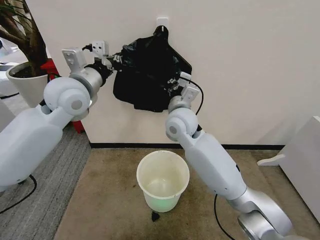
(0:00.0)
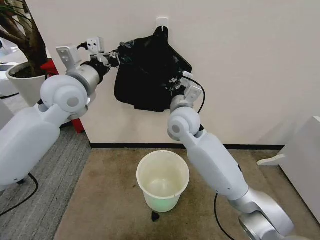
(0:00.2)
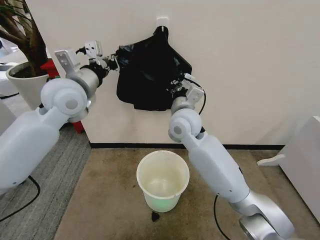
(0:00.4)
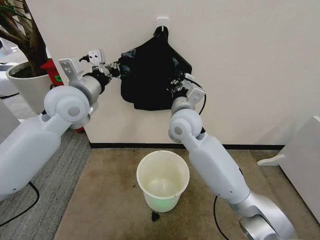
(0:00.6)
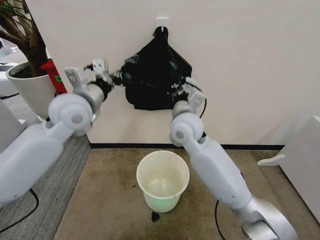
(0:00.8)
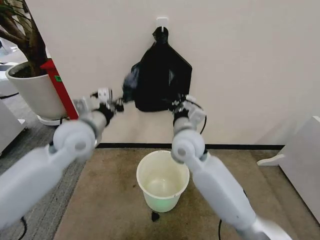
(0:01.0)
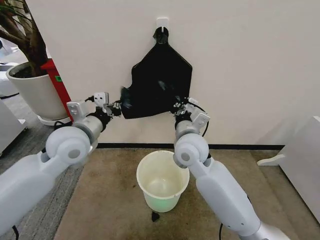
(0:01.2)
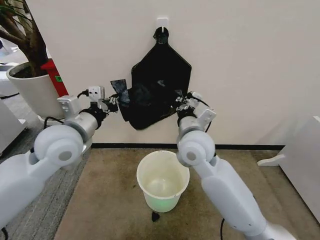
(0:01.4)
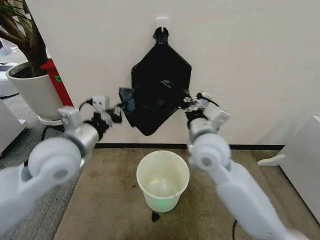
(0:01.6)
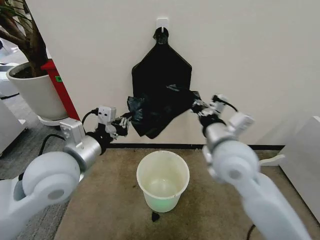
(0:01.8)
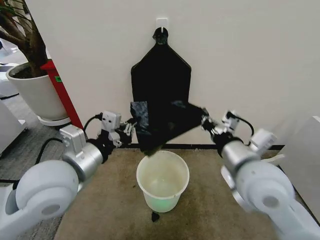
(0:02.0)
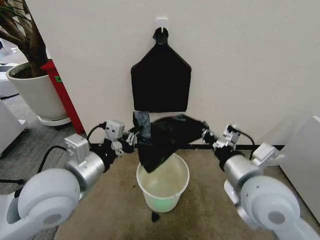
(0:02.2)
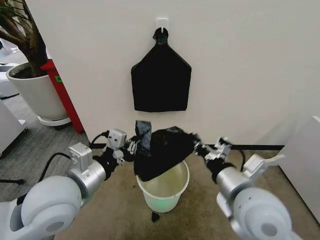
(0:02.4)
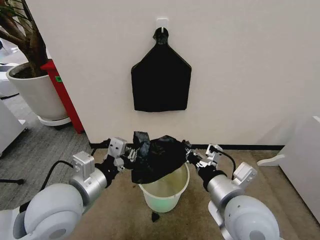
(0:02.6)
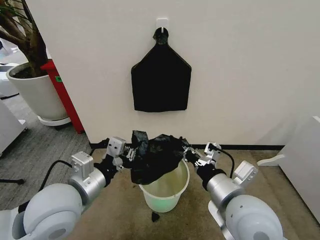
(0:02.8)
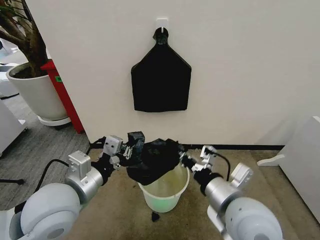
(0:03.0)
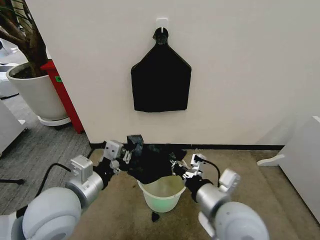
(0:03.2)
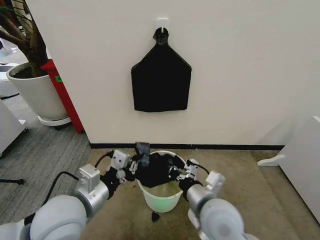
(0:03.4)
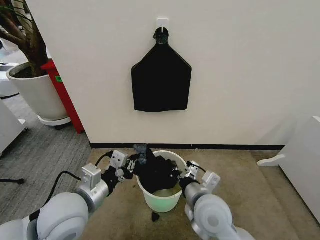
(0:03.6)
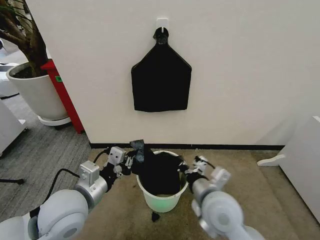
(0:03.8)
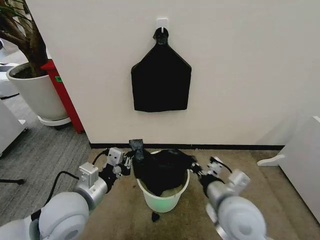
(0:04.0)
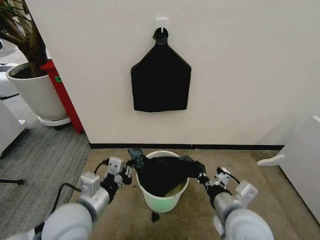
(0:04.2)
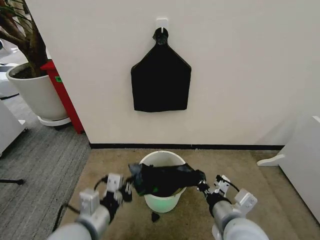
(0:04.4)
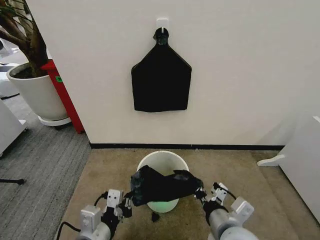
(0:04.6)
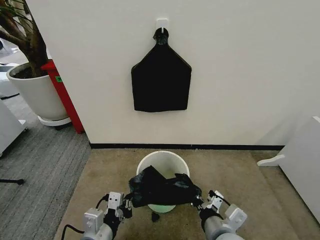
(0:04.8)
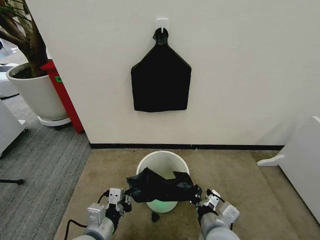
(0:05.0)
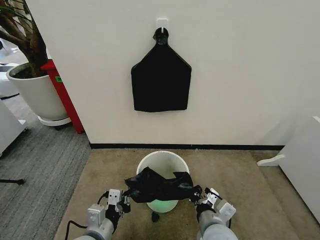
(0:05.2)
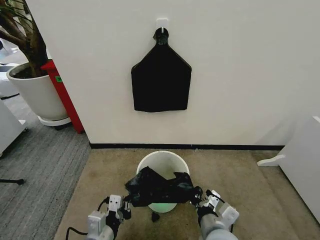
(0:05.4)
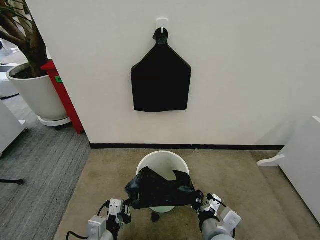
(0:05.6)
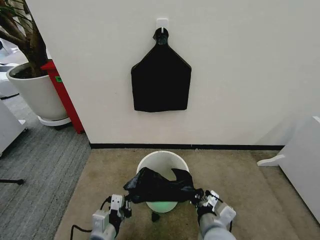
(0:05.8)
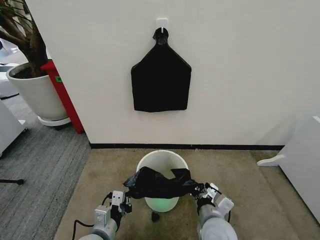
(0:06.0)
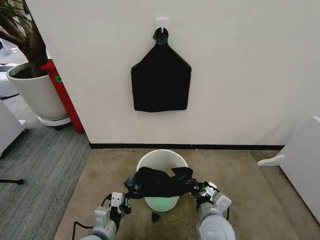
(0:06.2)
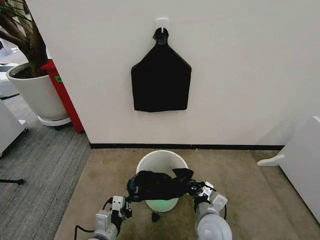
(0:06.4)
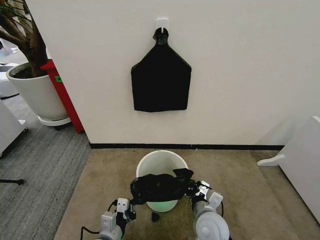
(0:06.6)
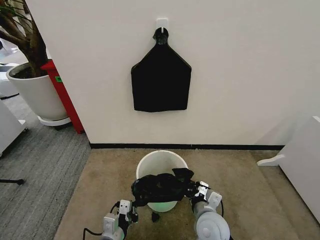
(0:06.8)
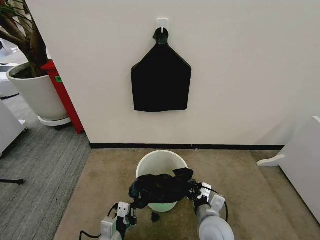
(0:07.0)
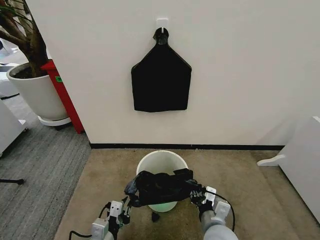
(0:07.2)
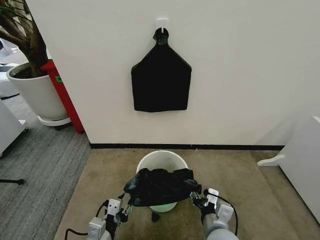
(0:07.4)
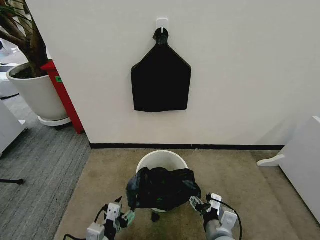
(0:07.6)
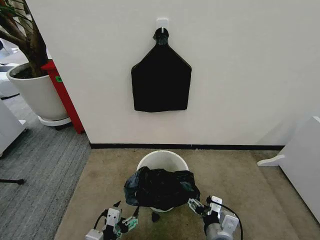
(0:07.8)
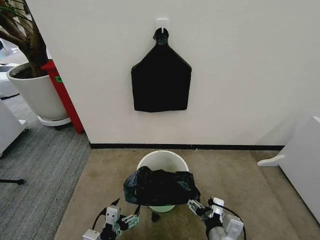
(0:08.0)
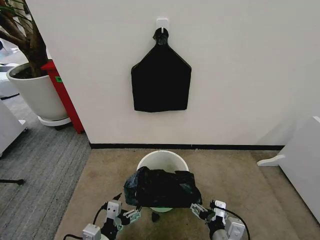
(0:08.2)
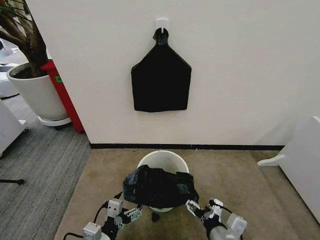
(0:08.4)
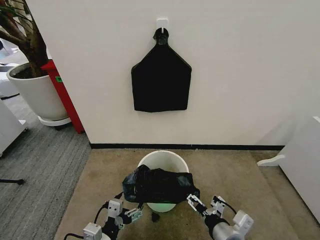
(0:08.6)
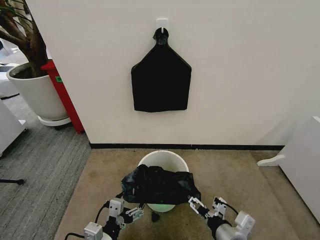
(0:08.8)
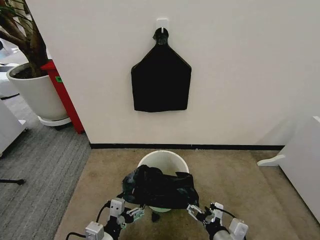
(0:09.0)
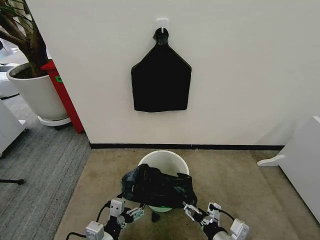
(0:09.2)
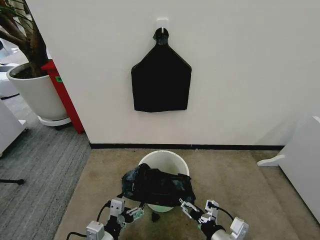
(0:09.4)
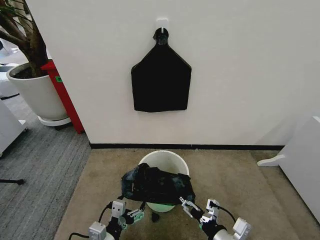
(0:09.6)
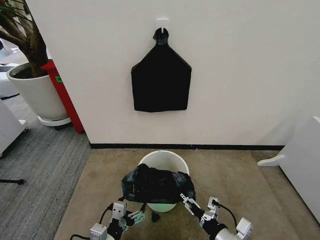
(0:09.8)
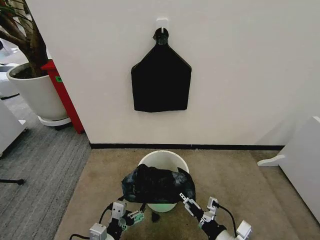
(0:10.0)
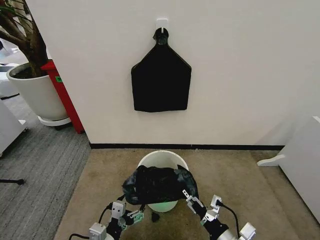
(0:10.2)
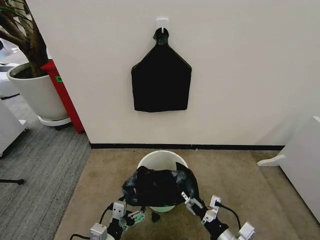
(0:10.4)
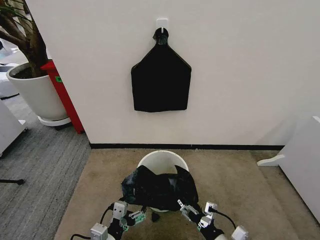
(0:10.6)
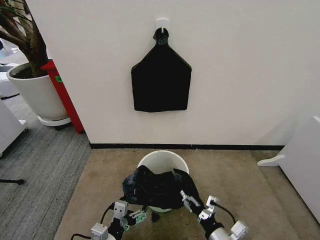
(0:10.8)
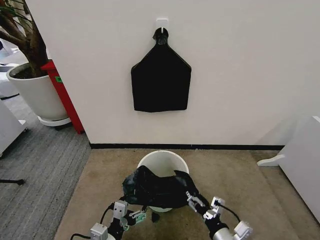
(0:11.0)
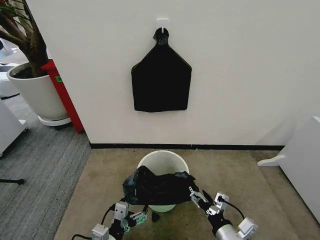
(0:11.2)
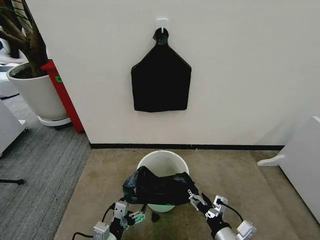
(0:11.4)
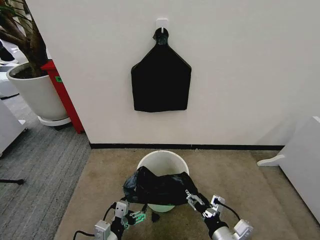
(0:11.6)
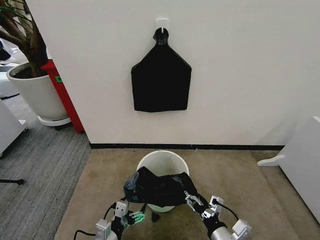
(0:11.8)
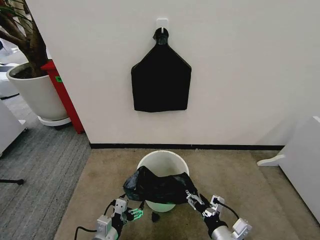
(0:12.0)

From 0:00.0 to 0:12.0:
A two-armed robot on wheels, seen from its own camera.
Task of the whole recording: Place the garbage bag over the trash bin.
From 0:00.0 to 0:01.6: The right gripper moves backward and to the right, approximately 15 cm. The left gripper moves backward and downward, roughly 15 cm.
From 0:01.6 to 0:03.0: The left gripper travels backward by approximately 5 cm, while the right gripper moves backward, approximately 15 cm.
From 0:03.0 to 0:04.4: The left gripper moves downward and backward, some 10 cm. Meanwhile the right gripper heads downward, covering some 5 cm.
From 0:04.4 to 0:06.0: Both grippers travel together downward, some 10 cm.
From 0:06.0 to 0:07.6: The right gripper opens its fingers. Meanwhile the left gripper opens up.
From 0:07.6 to 0:09.0: The right gripper shifts by some 5 cm.
From 0:10.4 to 0:12.0: The left gripper changes place by approximately 5 cm.

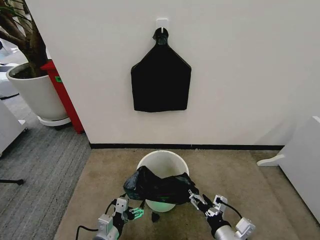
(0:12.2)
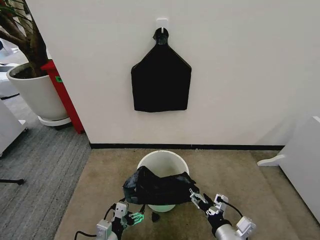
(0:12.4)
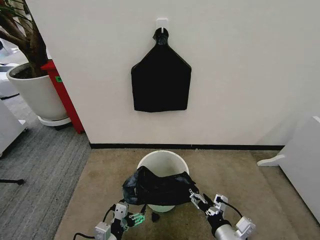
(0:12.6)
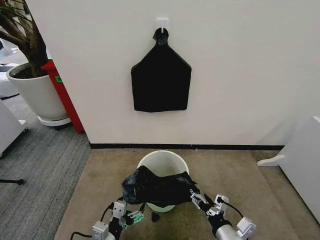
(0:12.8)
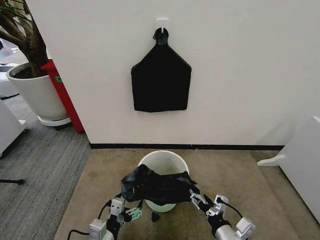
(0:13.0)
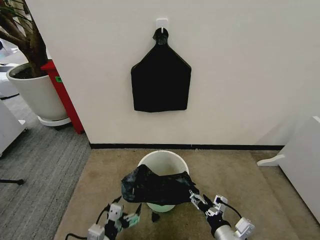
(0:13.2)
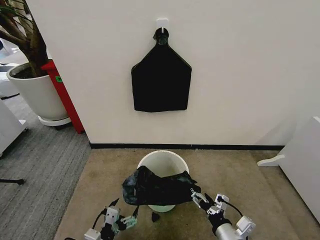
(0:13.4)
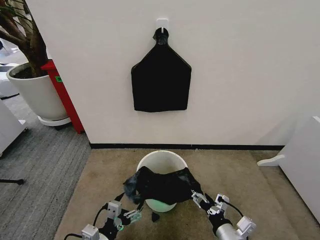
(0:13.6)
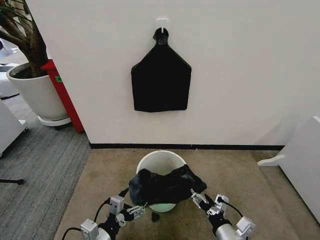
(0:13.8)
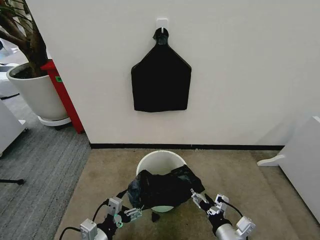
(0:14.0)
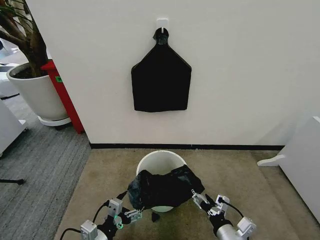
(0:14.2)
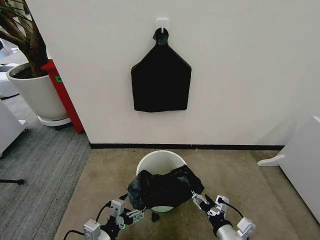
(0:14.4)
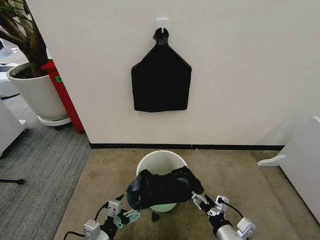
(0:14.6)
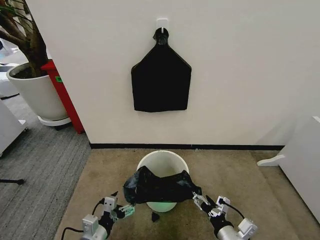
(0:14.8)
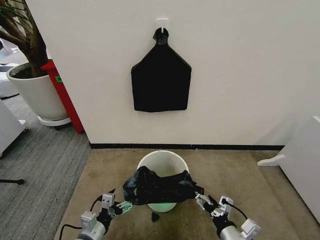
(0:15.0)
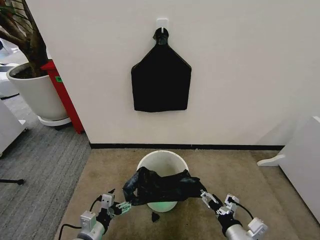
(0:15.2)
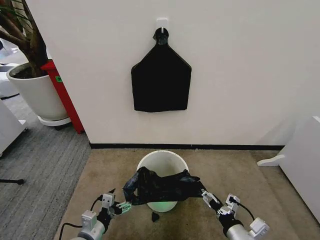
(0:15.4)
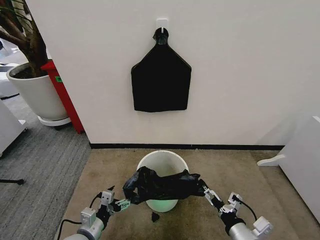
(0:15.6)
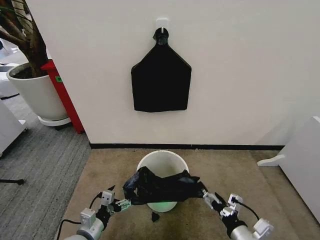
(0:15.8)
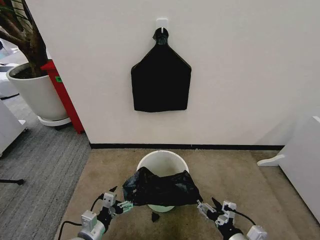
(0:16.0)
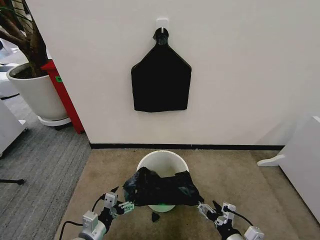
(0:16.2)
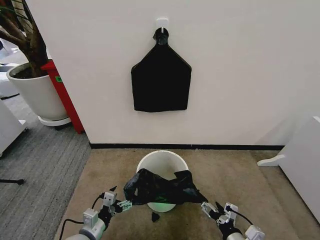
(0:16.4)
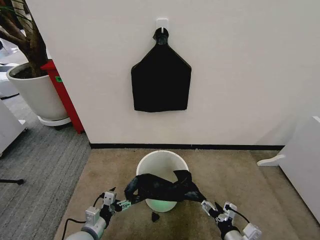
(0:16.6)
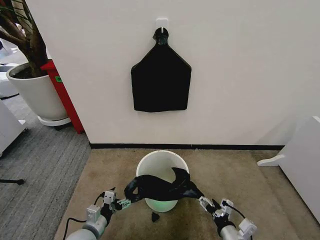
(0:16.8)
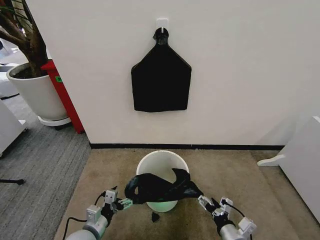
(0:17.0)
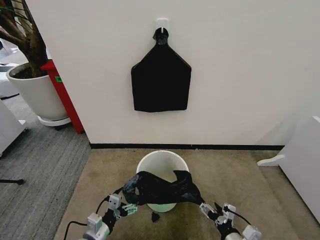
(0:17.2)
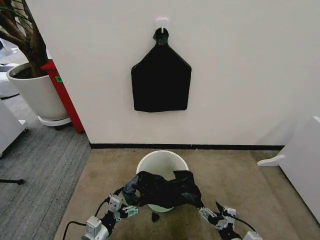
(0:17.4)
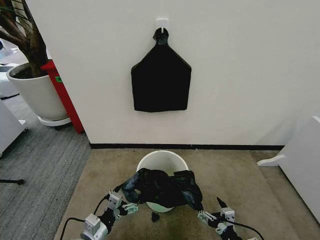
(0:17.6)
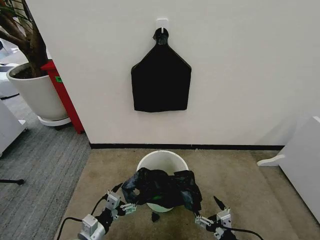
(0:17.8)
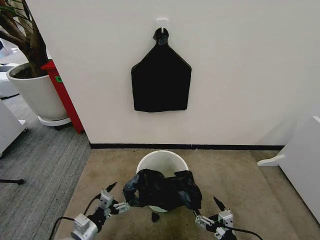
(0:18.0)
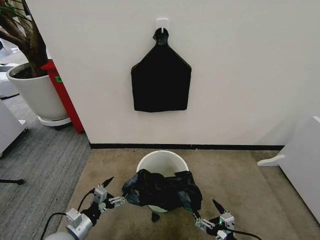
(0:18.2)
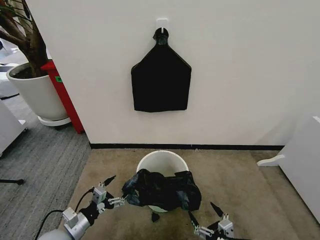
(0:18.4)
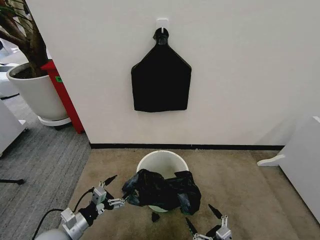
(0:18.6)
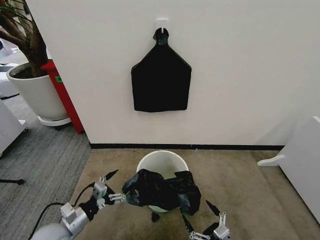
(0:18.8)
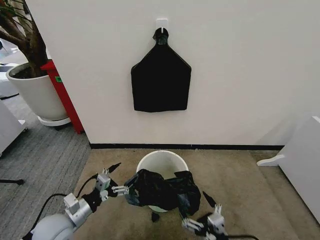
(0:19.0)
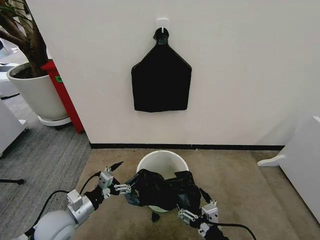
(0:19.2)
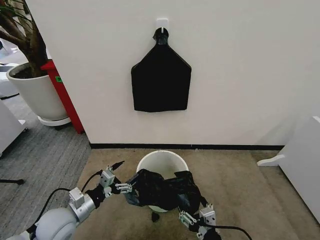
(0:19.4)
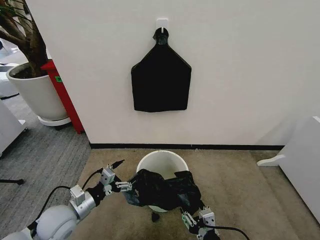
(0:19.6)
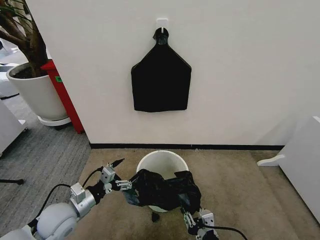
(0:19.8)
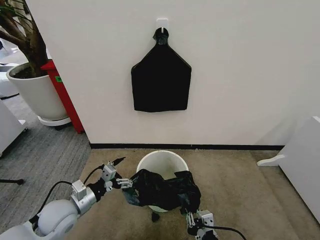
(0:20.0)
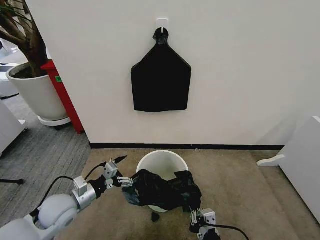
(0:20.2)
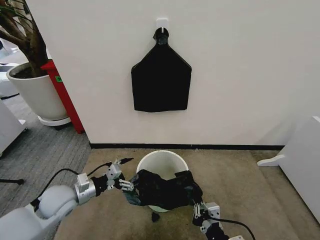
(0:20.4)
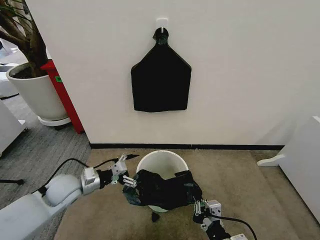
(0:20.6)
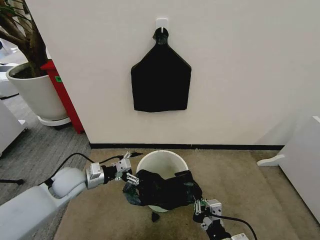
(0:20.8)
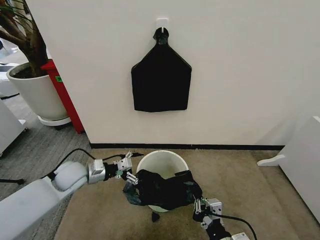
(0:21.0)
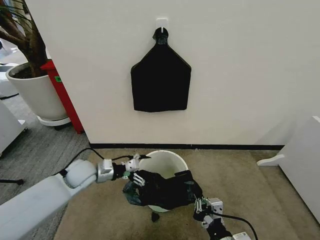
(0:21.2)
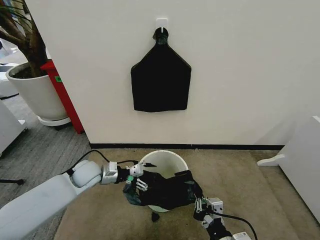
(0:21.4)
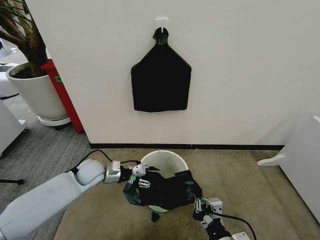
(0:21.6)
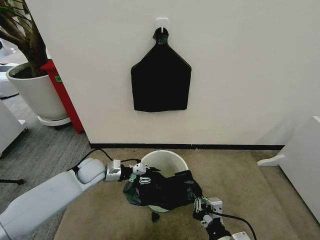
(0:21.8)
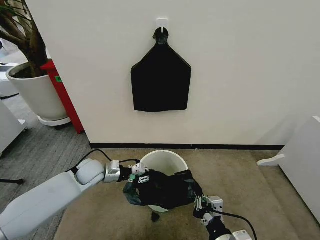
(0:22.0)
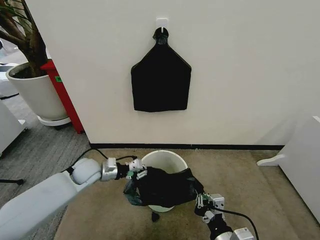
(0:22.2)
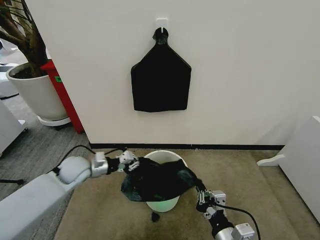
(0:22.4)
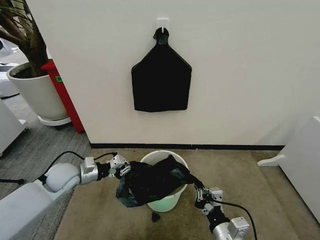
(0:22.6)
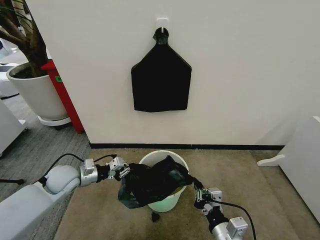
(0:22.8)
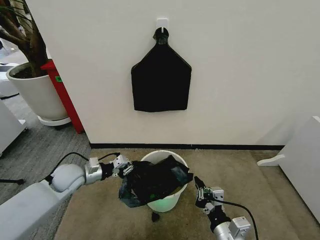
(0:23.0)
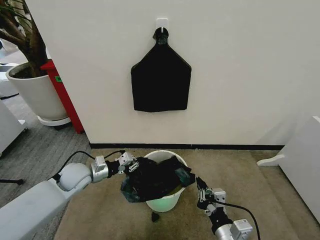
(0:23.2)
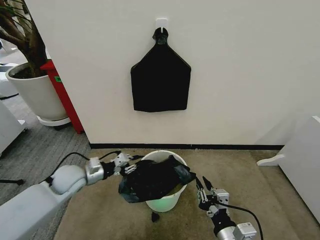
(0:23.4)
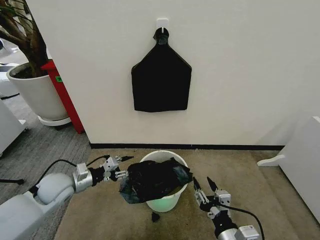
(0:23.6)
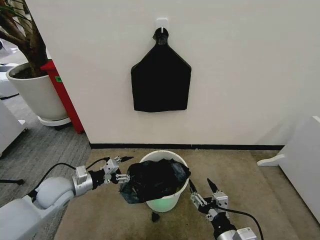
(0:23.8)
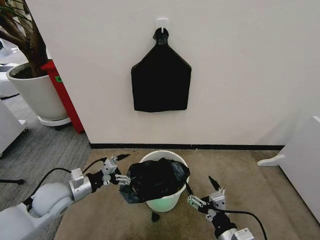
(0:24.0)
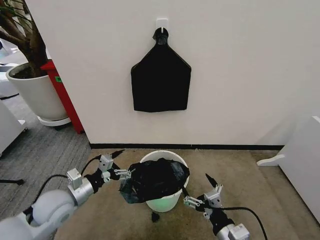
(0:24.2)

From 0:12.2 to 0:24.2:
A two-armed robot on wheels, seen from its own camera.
Task of the whole recording: Place the garbage bag over the trash bin.
From 0:12.2 to 0:13.8: The left gripper moves upward, approximately 5 cm.
From 0:13.8 to 0:15.2: The left gripper moves downward, about 5 cm.
From 0:15.2 to 0:16.6: The right gripper heads downward, covering some 5 cm.
From 0:16.6 to 0:18.2: The left gripper ends up about 5 cm from where it was, while the right gripper is displaced backward by about 5 cm.
From 0:18.2 to 0:19.8: The right gripper is displaced to the left and upward by approximately 10 cm, and closes its fingers; the left gripper shifts about 10 cm upward and forward.
From 0:19.8 to 0:21.2: The left gripper moves forward, some 15 cm.
From 0:21.2 to 0:22.6: The left gripper shifts by about 5 cm, and closes up.
From 0:22.6 to 0:24.2: The left gripper shifts roughly 10 cm backward, and opens its fingers. Meanwhile the right gripper opens.
